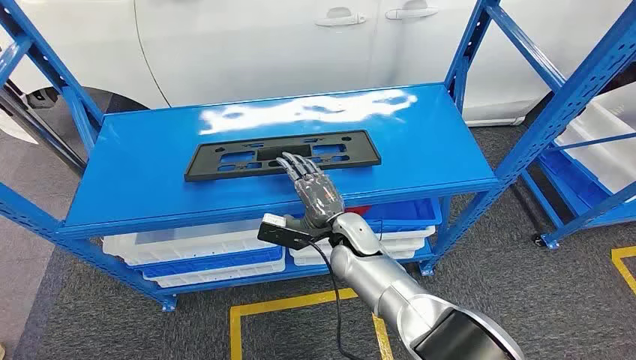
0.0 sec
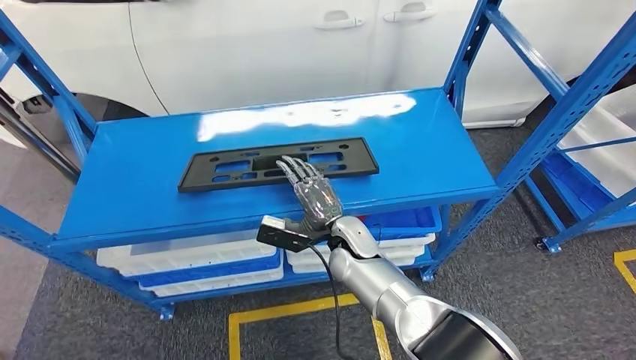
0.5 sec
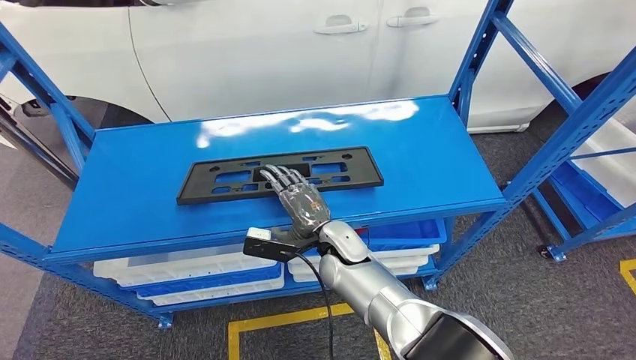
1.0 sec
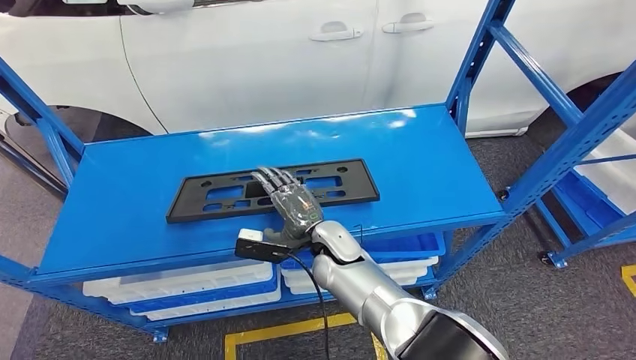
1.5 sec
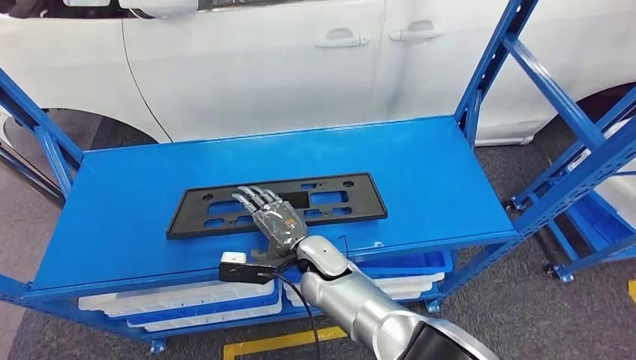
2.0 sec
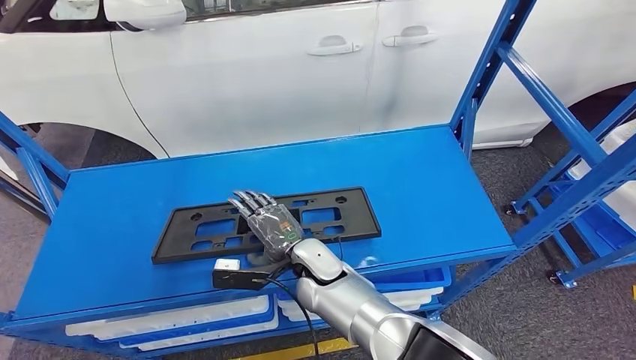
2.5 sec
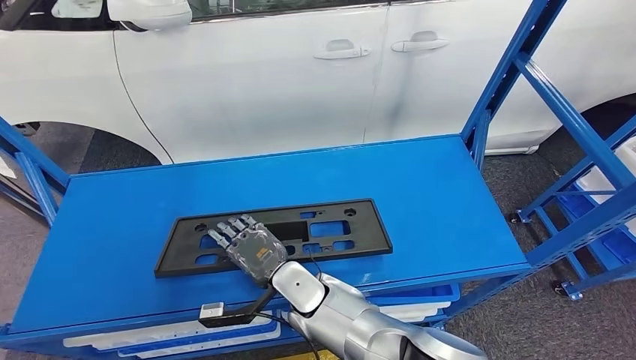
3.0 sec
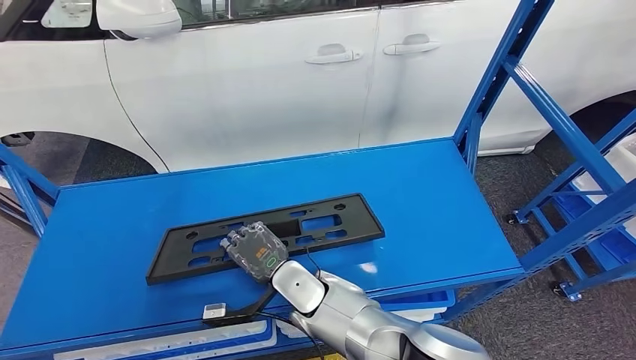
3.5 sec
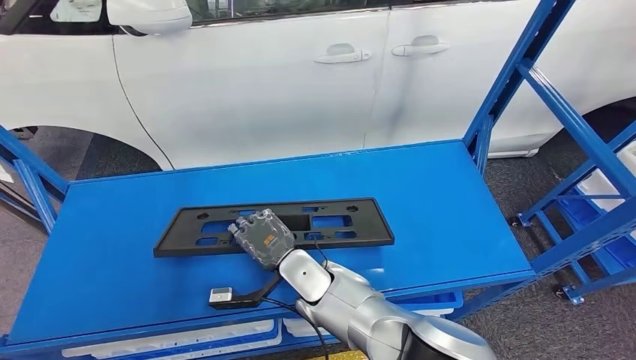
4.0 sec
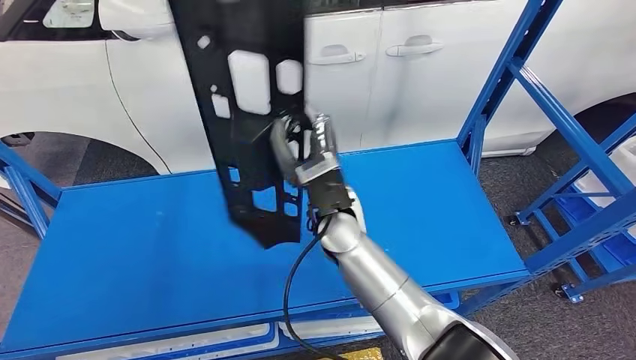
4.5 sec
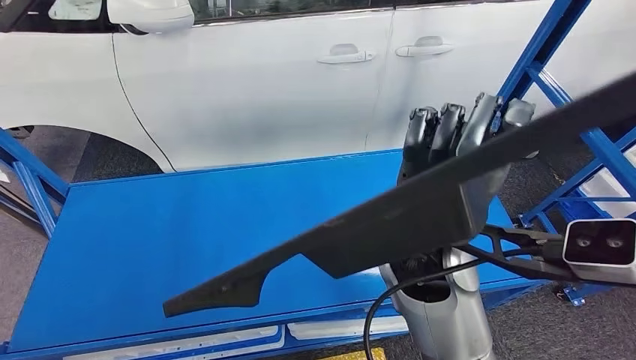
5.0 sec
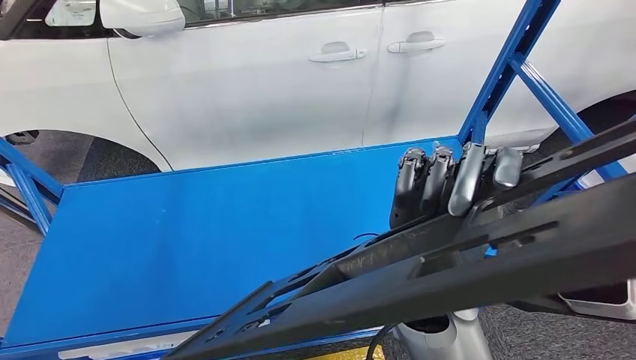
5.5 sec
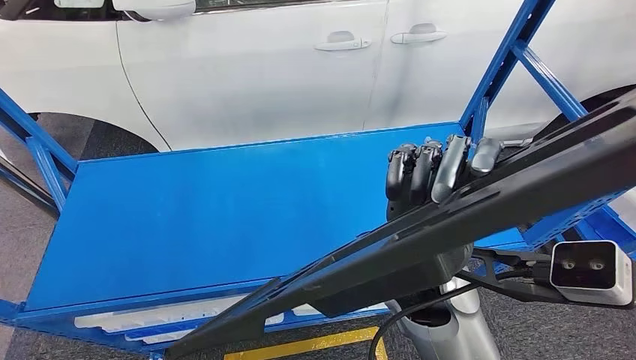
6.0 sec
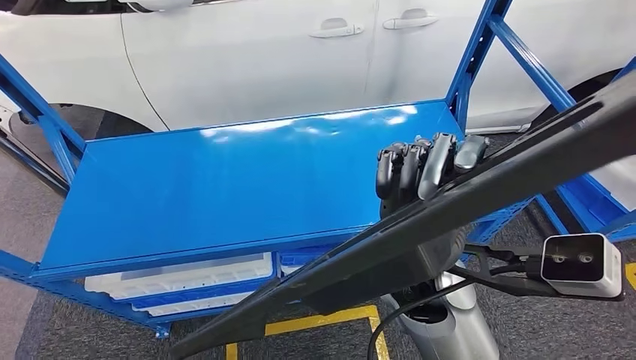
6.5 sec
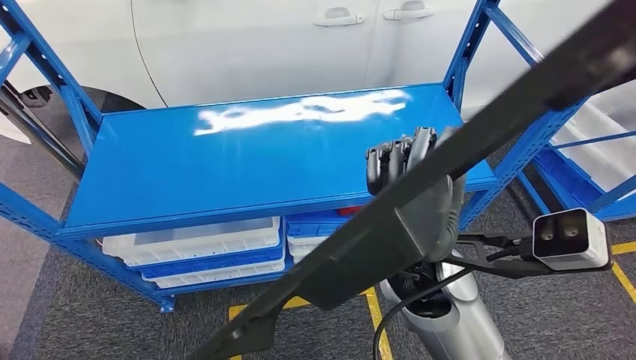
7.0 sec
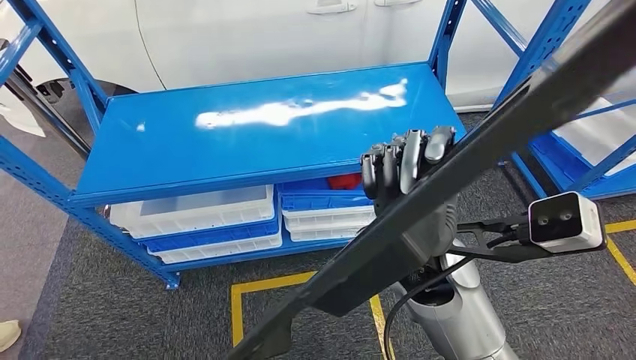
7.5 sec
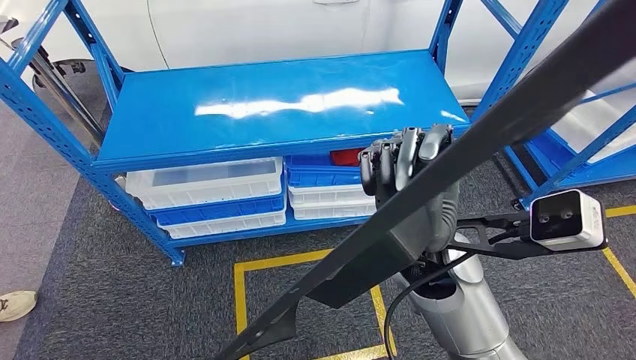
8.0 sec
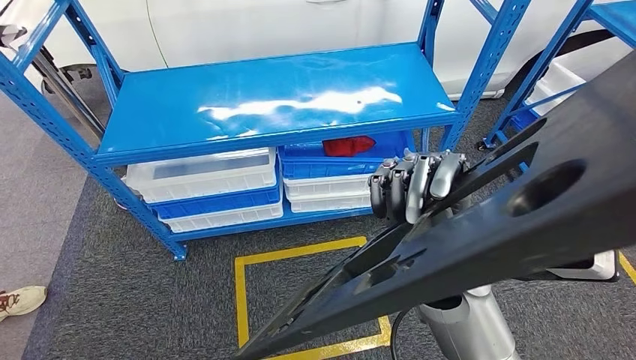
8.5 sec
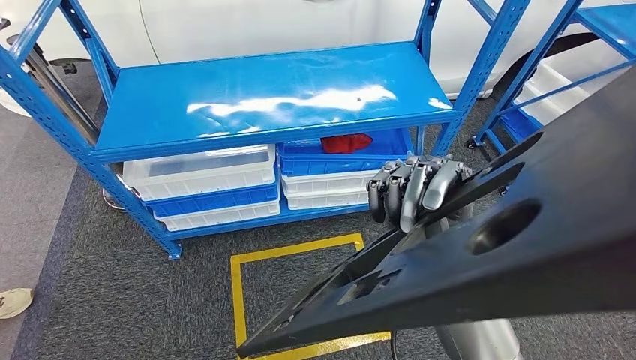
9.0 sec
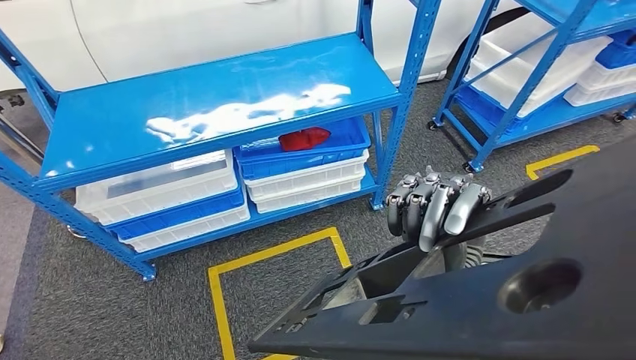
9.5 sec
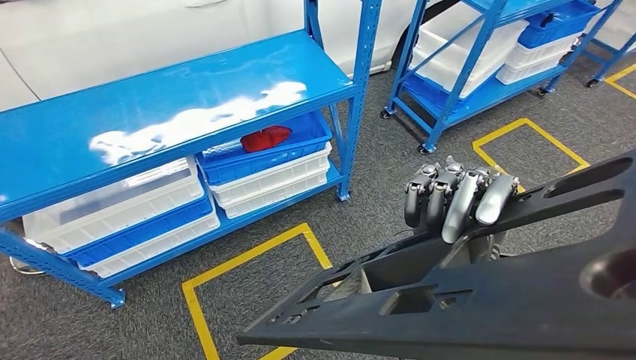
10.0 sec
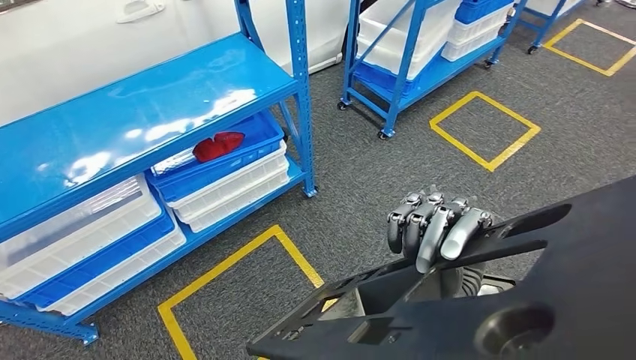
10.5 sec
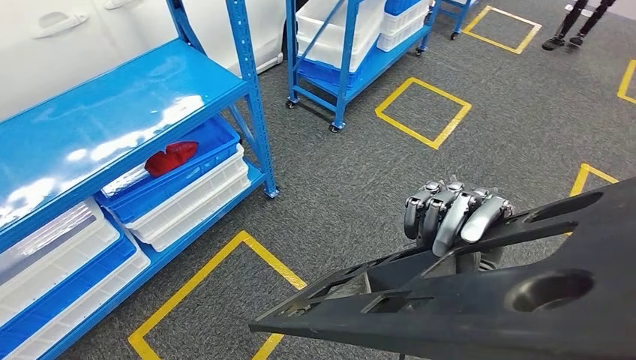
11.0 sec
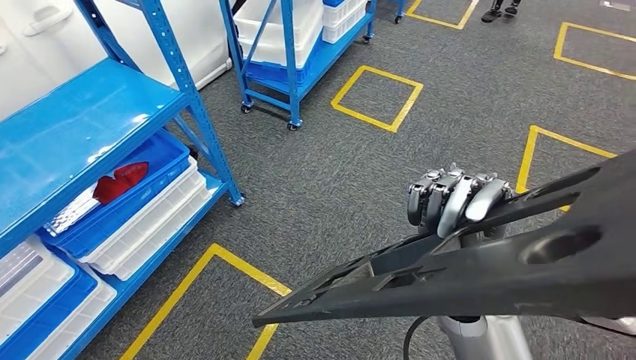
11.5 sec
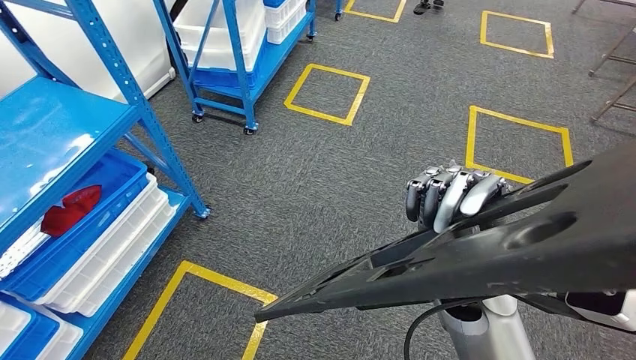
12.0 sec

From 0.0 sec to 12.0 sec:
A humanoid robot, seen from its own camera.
Step, from 0.0 sec to 5.5 sec: Pick up the large material from the shelf.

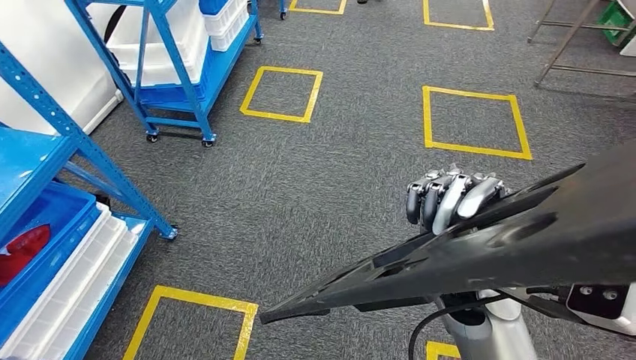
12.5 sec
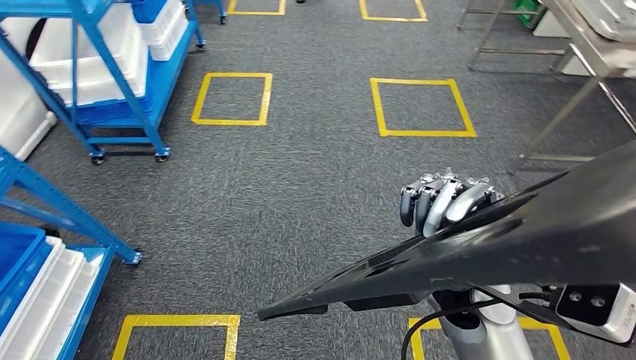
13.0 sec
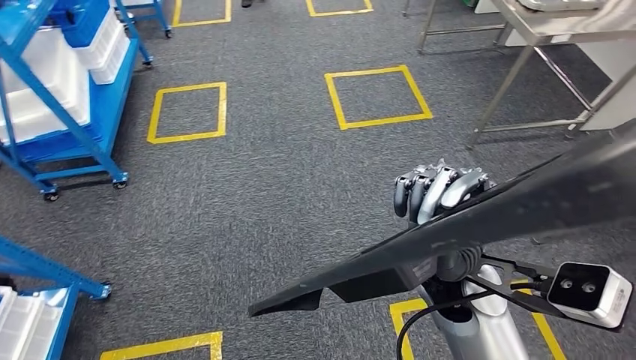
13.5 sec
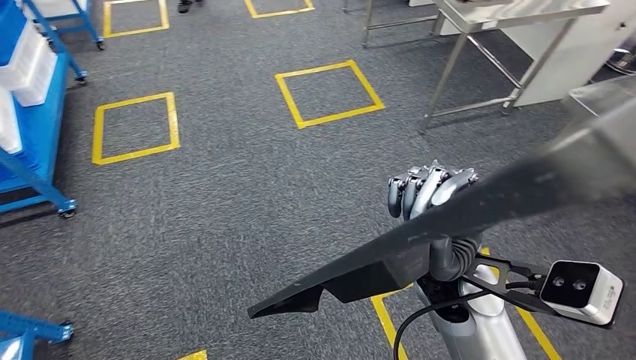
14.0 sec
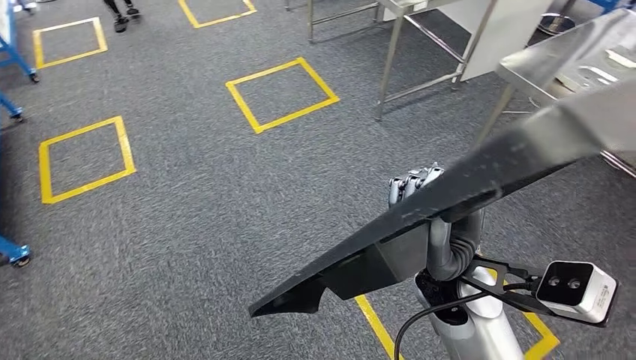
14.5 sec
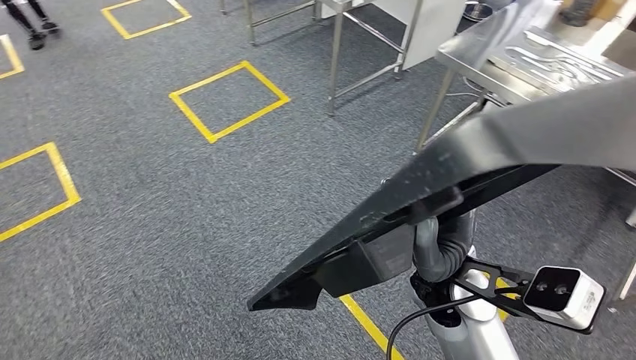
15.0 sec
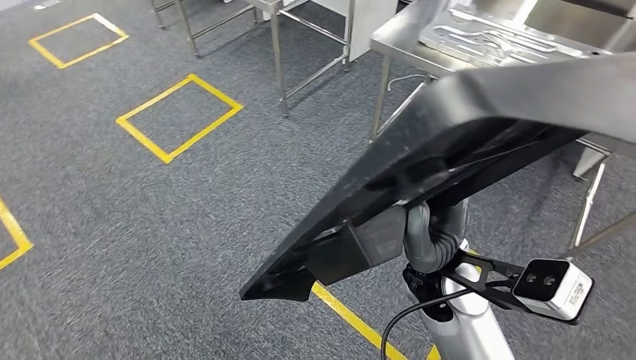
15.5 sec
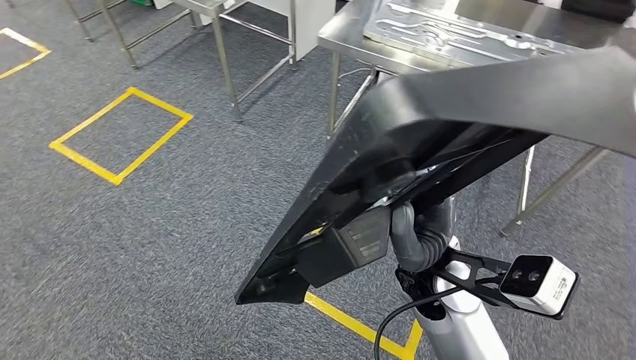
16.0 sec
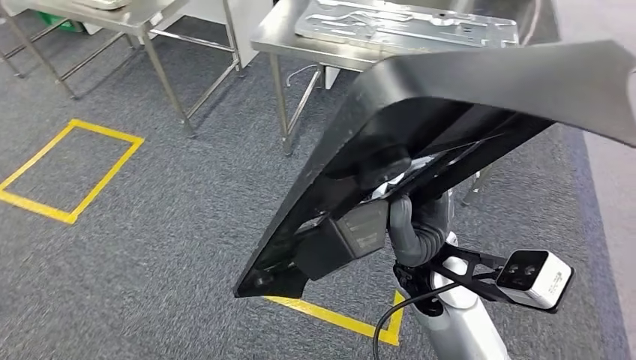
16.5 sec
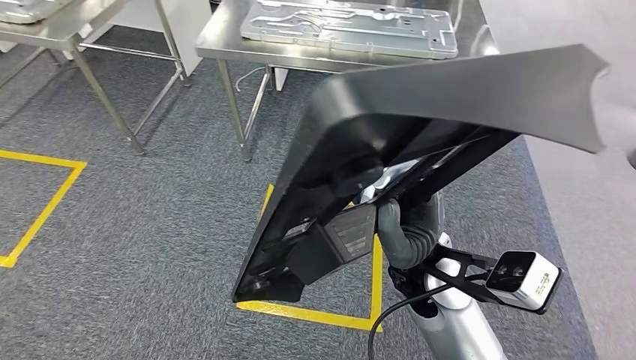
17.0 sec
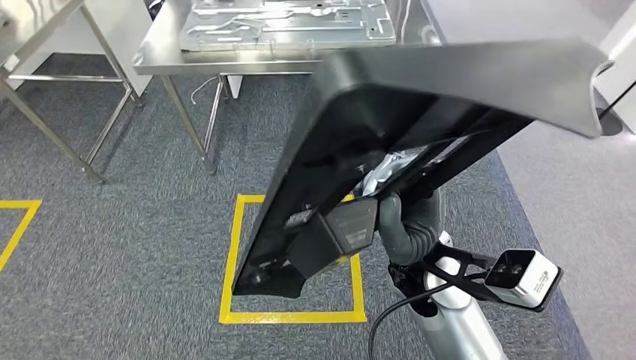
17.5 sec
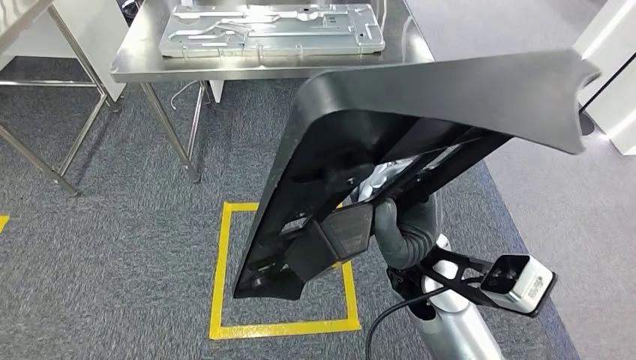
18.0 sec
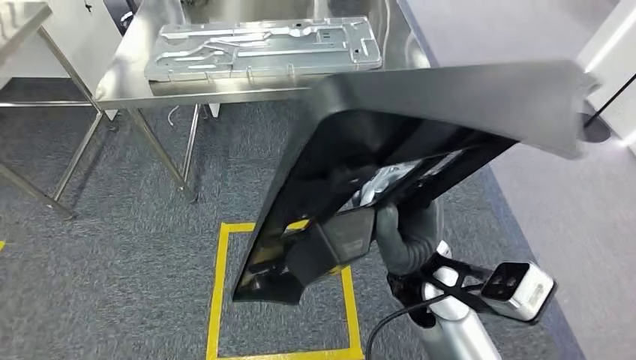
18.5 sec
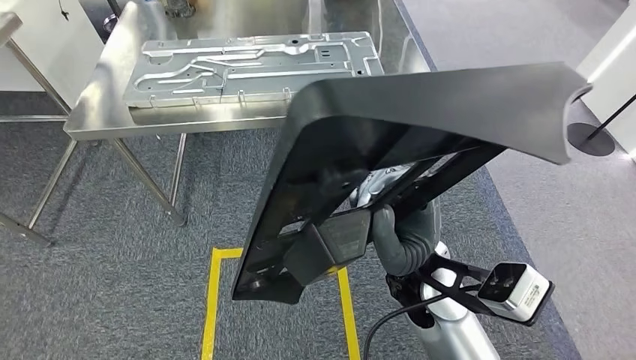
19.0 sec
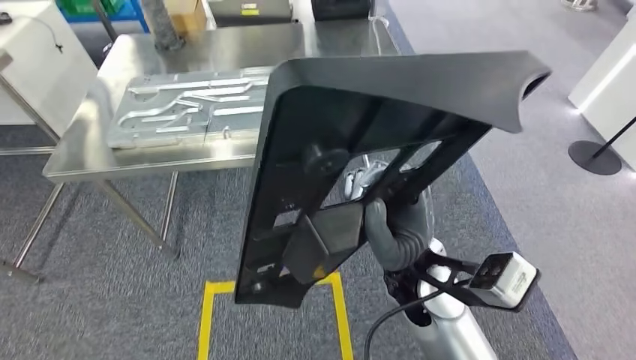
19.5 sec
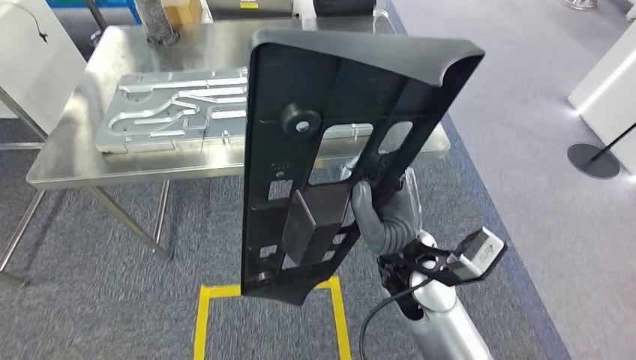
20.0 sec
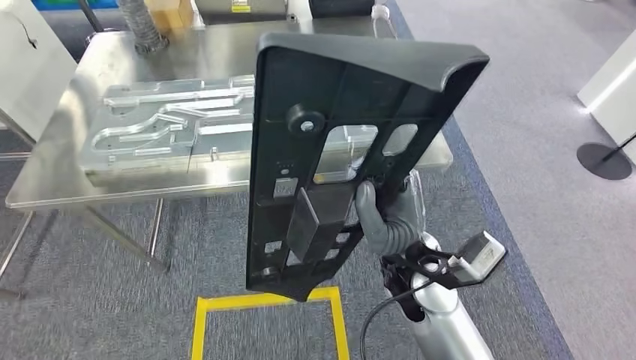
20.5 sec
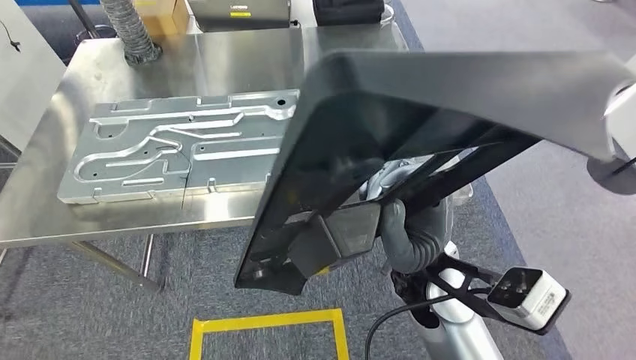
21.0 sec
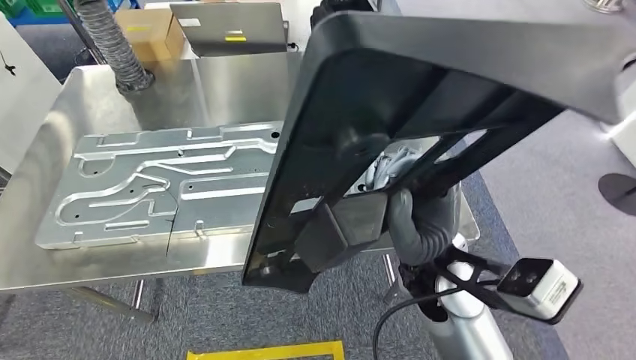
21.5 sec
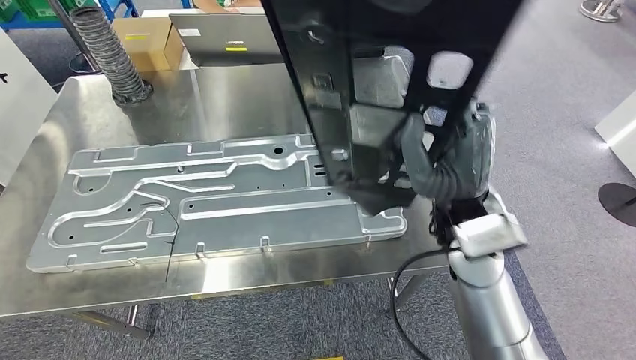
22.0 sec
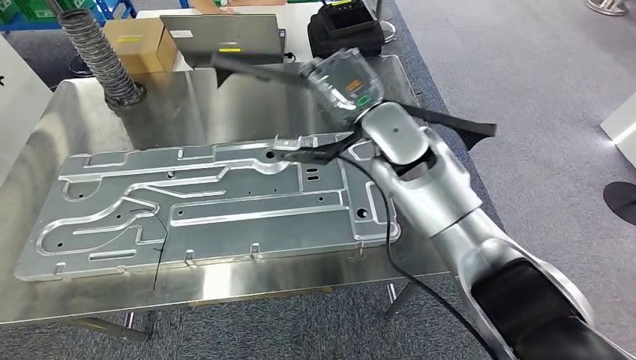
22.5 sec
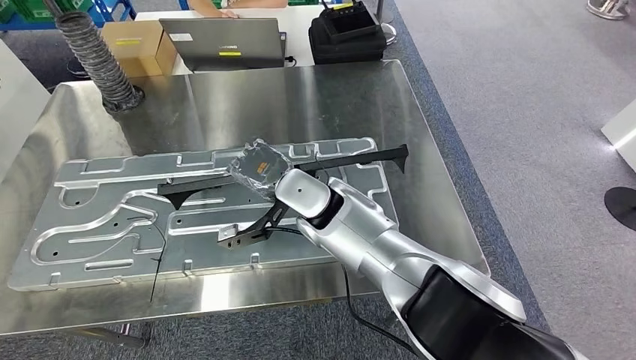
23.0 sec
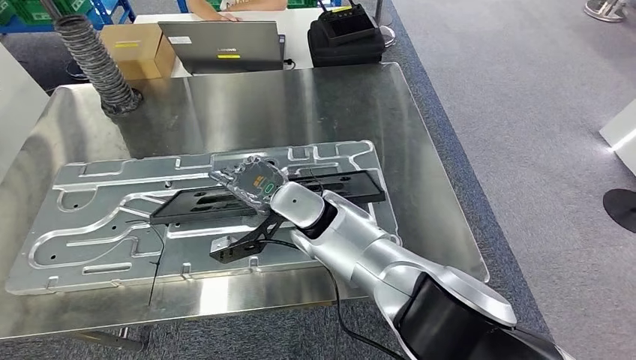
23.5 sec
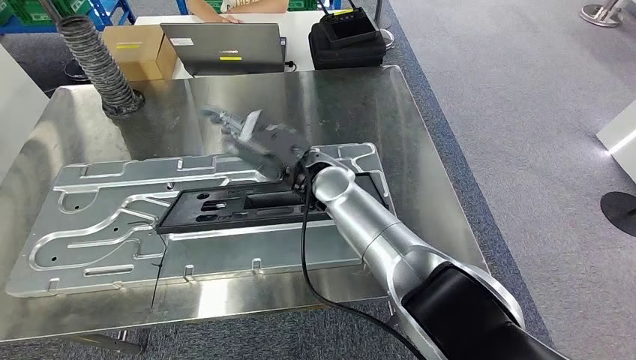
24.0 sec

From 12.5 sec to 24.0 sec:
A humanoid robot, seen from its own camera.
Step, from 12.5 sec to 23.5 sec: Move the large material to the workbench.
